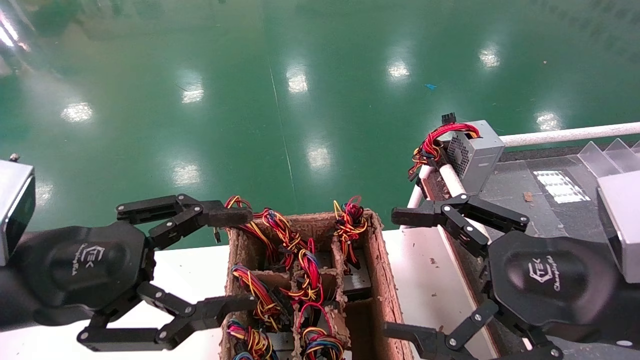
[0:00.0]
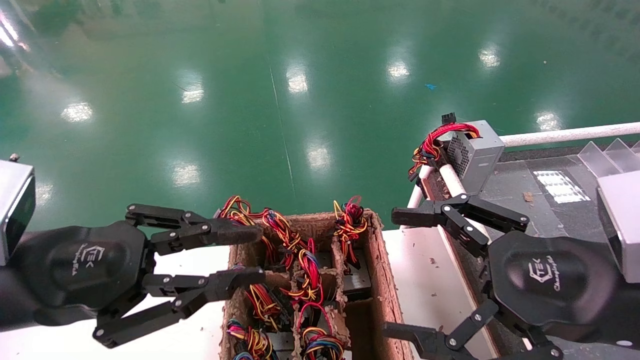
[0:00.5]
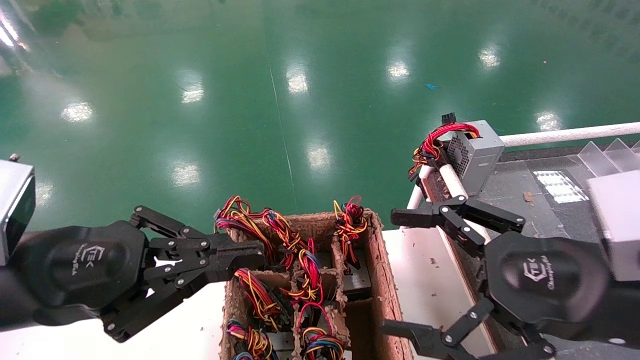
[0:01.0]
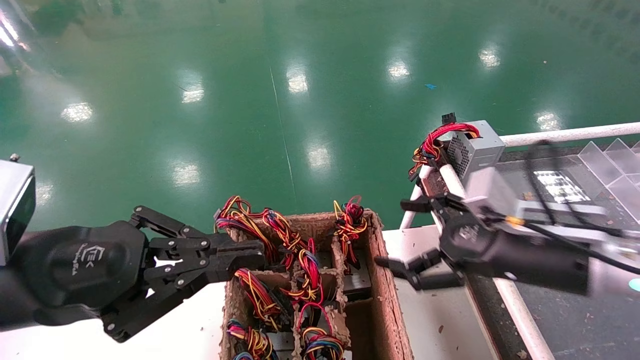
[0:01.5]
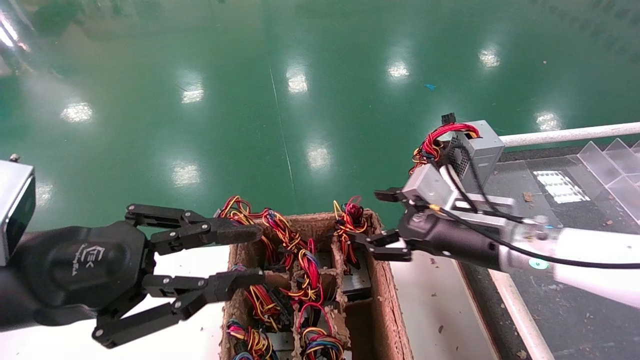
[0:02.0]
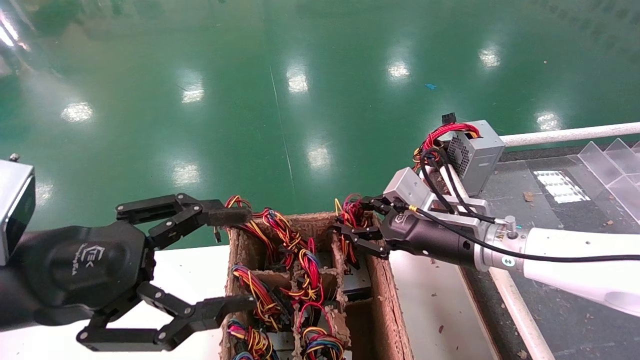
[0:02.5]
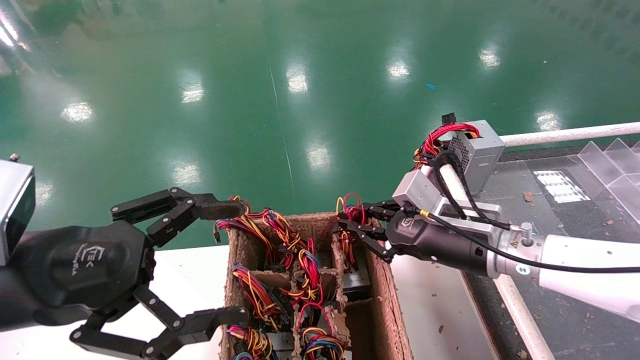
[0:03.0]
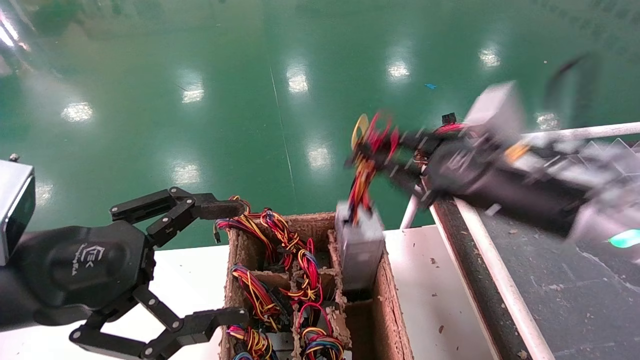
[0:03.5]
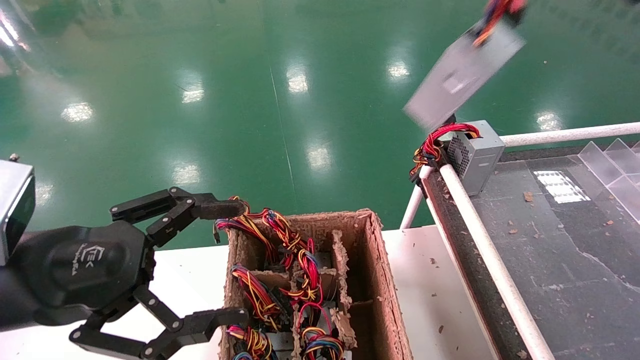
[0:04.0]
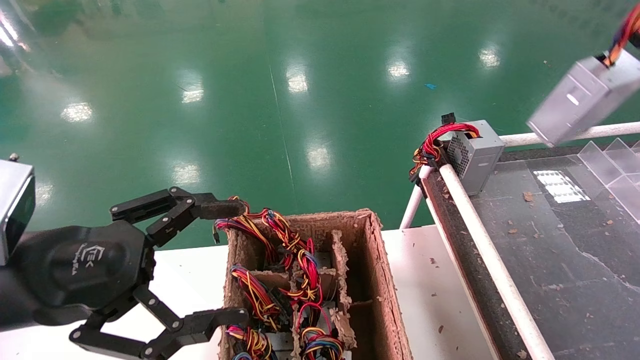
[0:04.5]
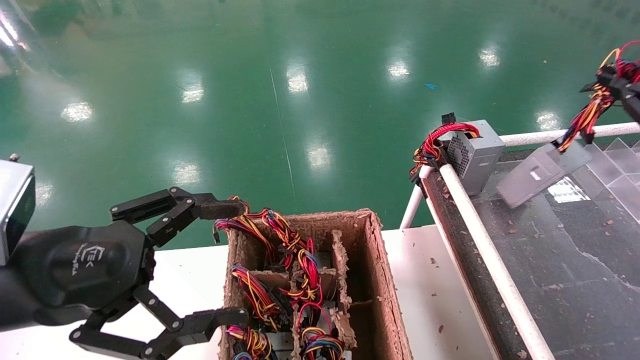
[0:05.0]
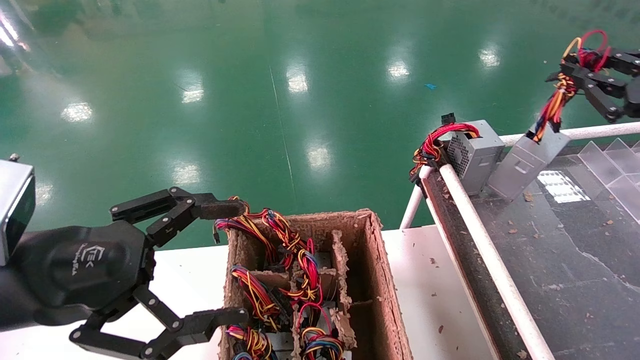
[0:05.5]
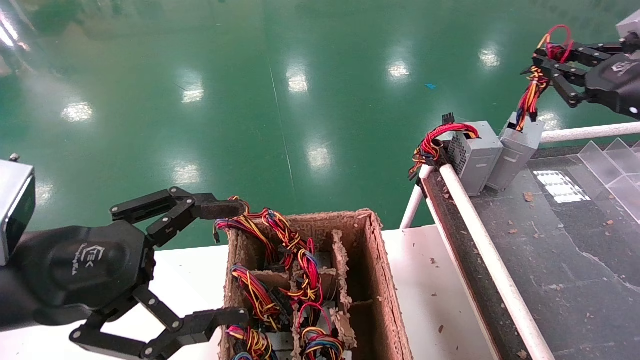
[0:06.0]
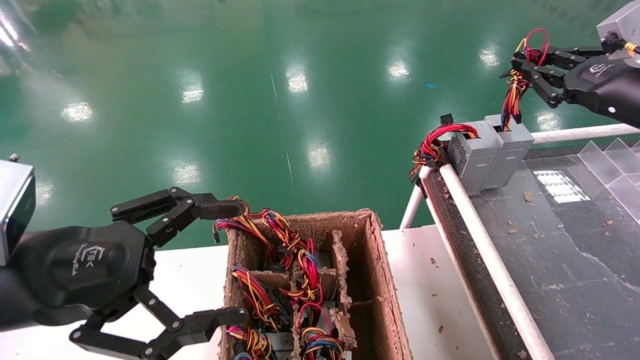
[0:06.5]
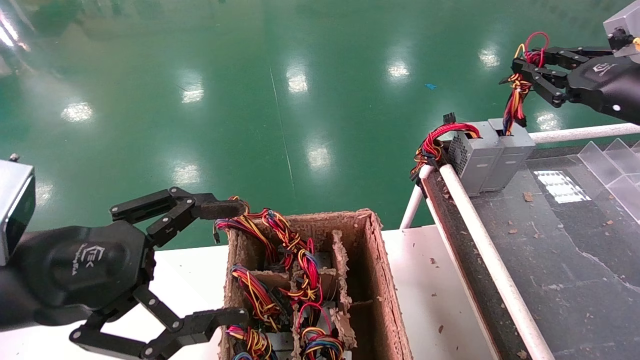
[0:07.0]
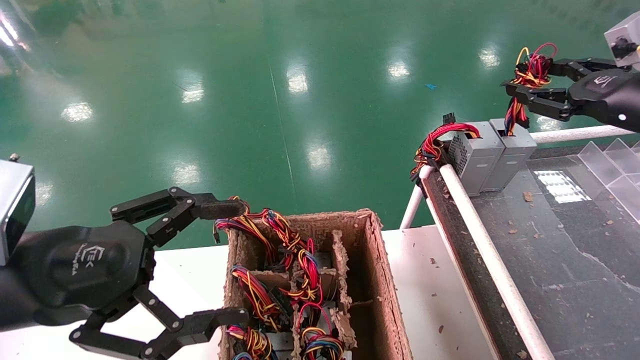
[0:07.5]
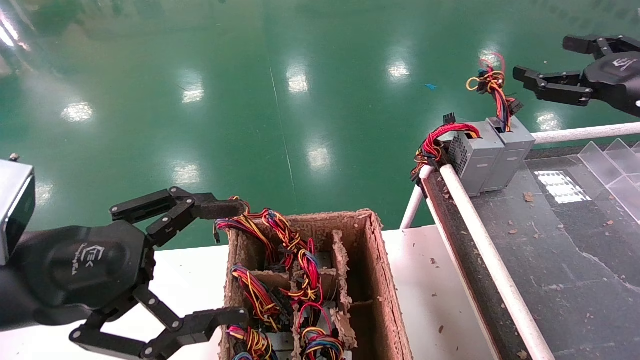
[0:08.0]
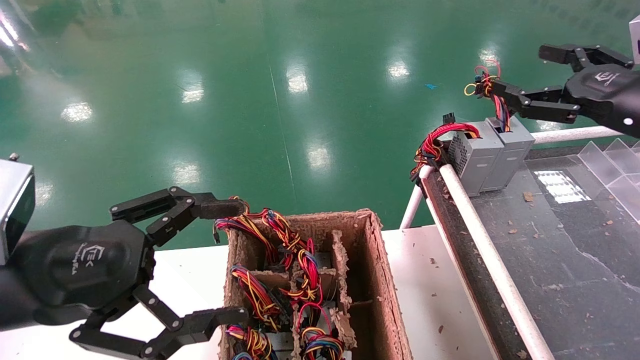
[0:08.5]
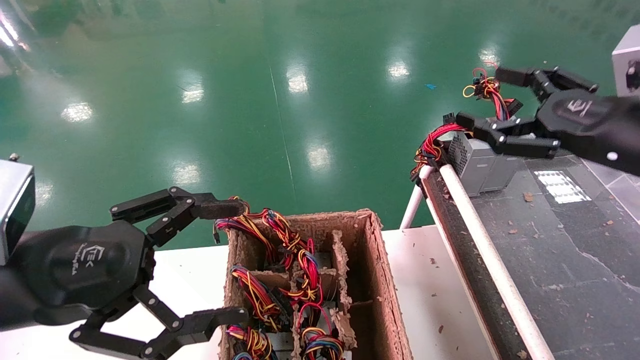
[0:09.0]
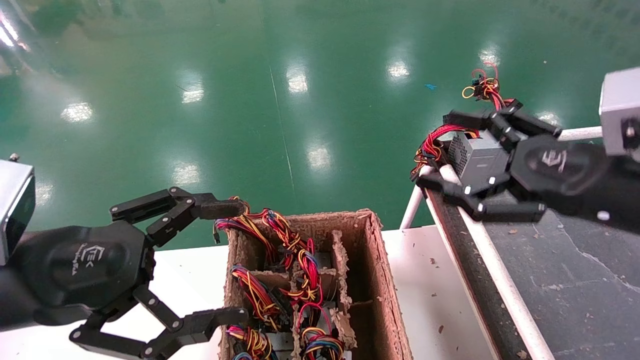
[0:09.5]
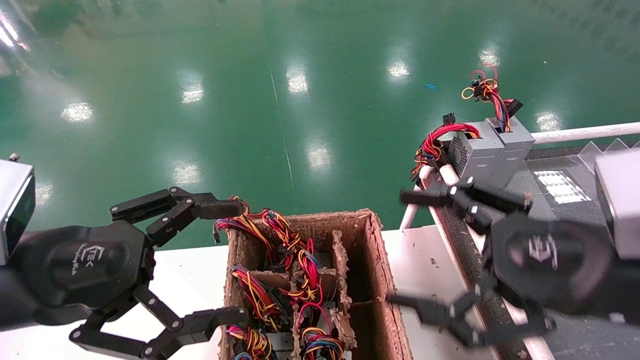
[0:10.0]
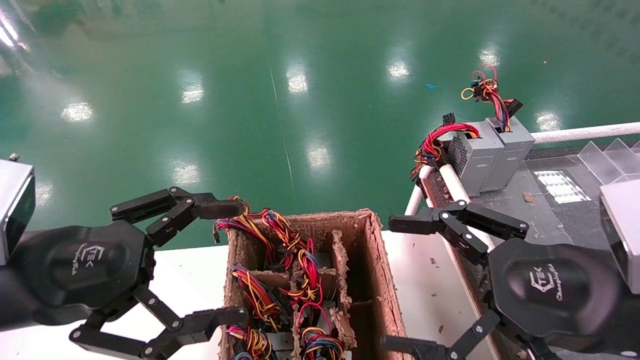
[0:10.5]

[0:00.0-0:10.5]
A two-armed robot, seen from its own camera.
Step, 0:01.5 to 0:05.5: Grab and lift the power supply from the large box.
Step, 0:06.0 to 0:09.0: Place the power supply on the operating table.
0:00.0 to 0:02.0: The left gripper closes, while the right gripper shifts approximately 15 cm forward.
0:02.0 to 0:04.0: The left gripper opens up. Meanwhile the right gripper heads upward, to the right and backward, covering some 30 cm, and closes.
0:04.0 to 0:06.5: The right gripper shifts roughly 15 cm forward and downward.
0:06.5 to 0:08.5: The right gripper opens.
0:08.5 to 0:10.5: The right gripper heads backward, to the left and downward, covering about 20 cm.
